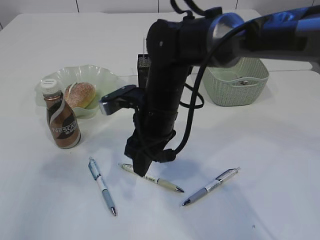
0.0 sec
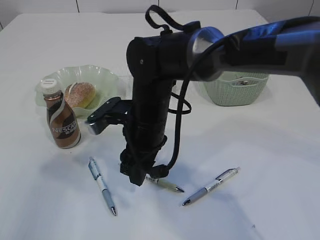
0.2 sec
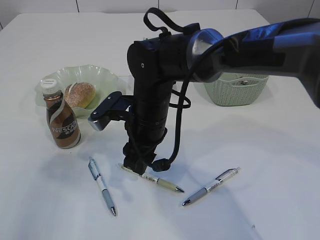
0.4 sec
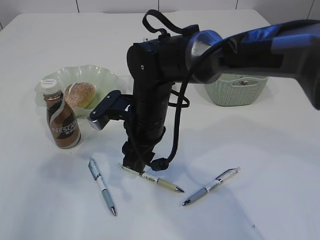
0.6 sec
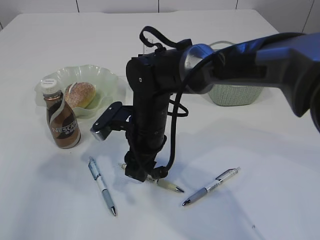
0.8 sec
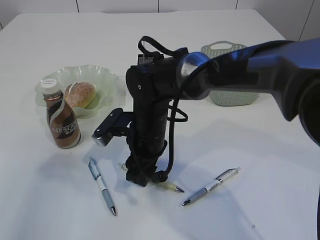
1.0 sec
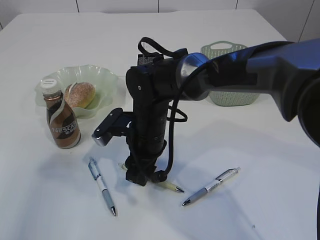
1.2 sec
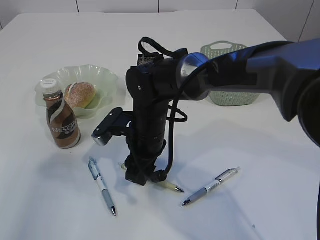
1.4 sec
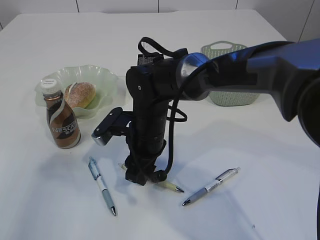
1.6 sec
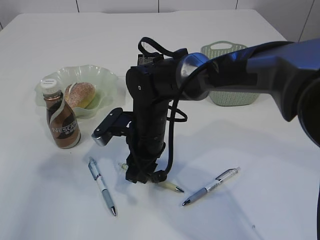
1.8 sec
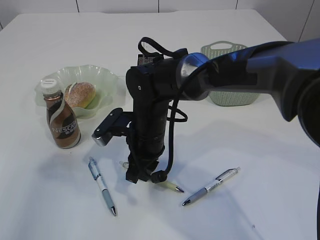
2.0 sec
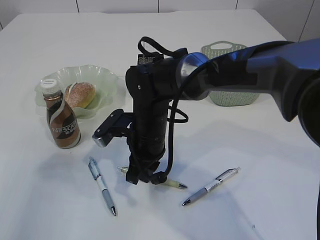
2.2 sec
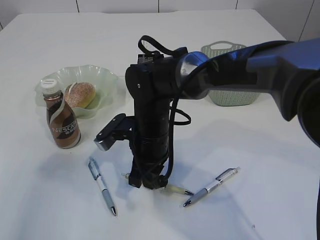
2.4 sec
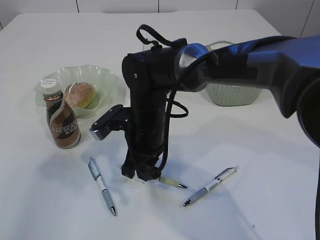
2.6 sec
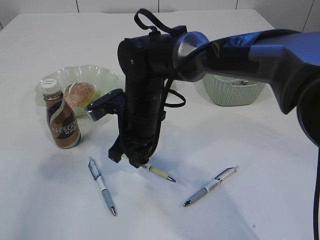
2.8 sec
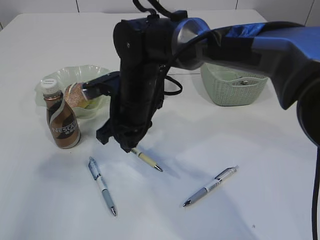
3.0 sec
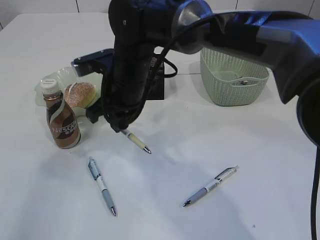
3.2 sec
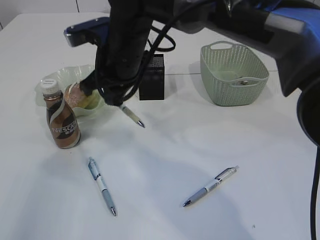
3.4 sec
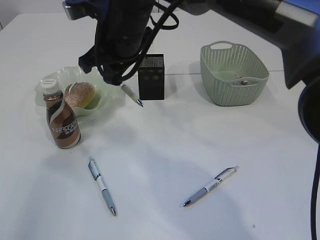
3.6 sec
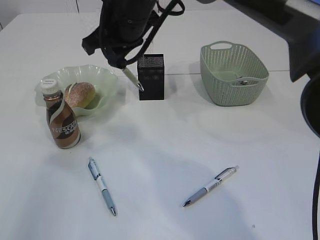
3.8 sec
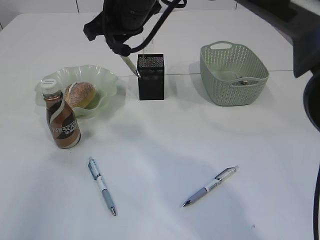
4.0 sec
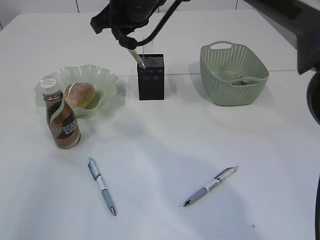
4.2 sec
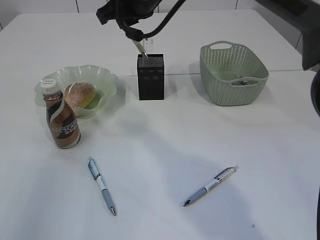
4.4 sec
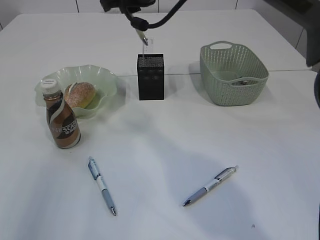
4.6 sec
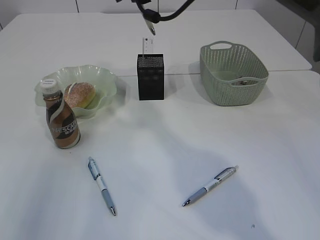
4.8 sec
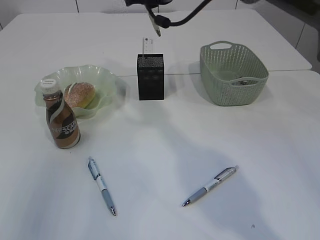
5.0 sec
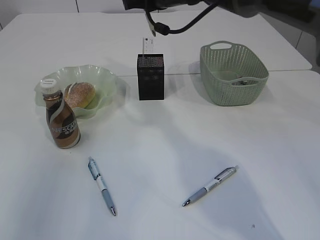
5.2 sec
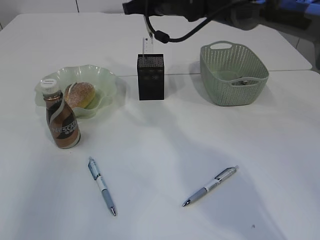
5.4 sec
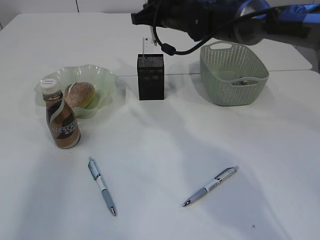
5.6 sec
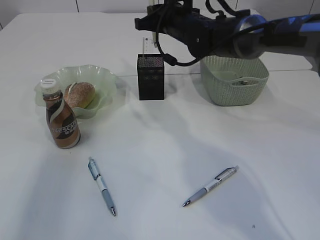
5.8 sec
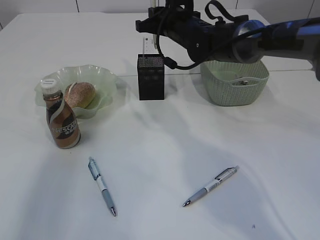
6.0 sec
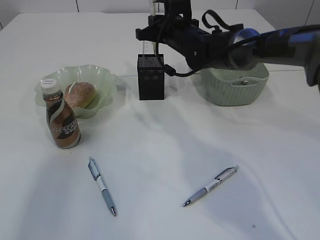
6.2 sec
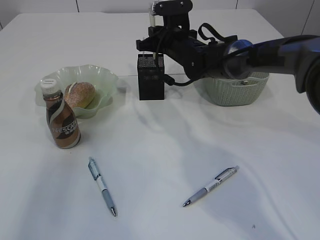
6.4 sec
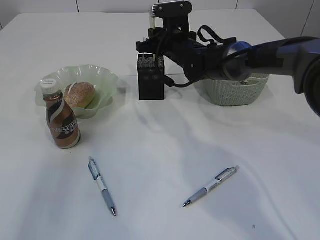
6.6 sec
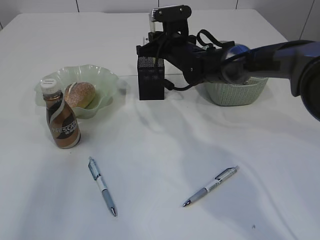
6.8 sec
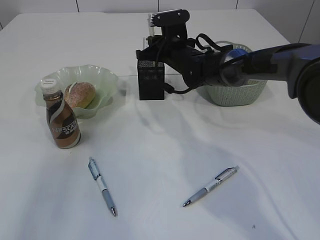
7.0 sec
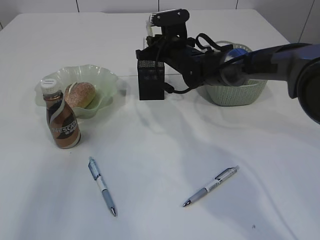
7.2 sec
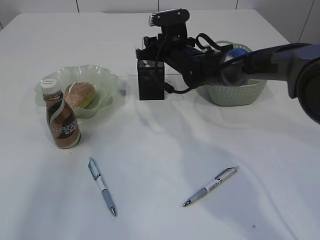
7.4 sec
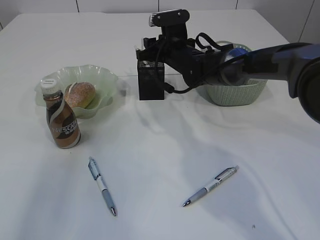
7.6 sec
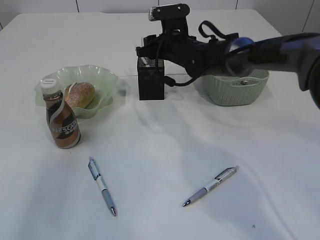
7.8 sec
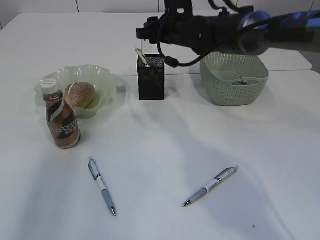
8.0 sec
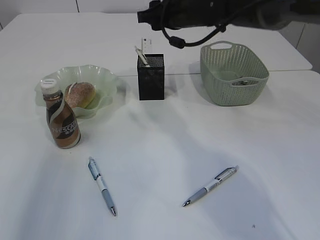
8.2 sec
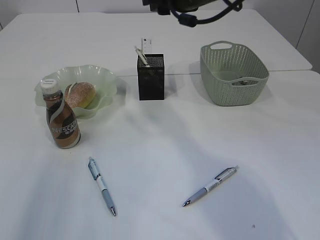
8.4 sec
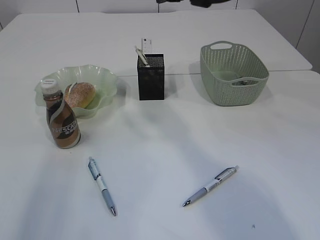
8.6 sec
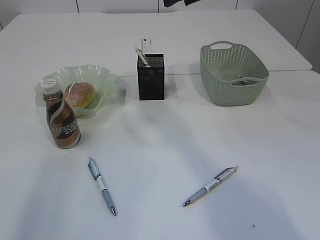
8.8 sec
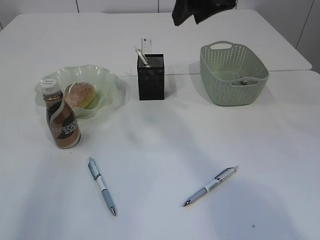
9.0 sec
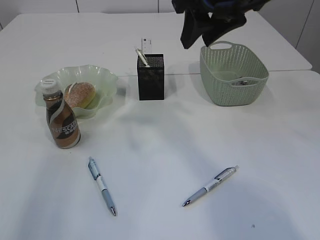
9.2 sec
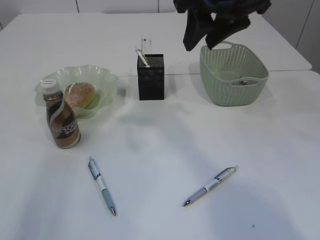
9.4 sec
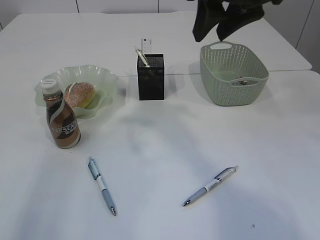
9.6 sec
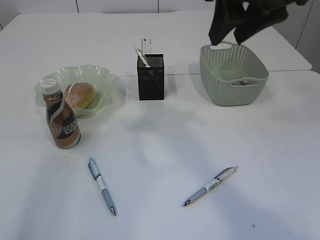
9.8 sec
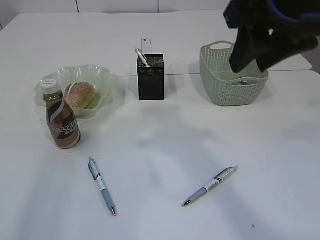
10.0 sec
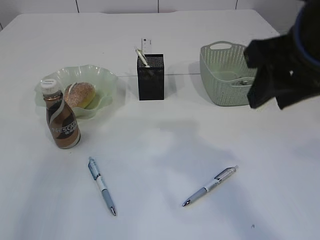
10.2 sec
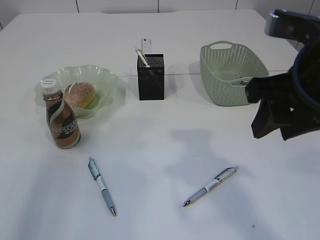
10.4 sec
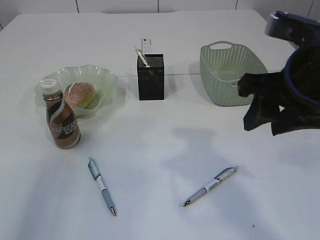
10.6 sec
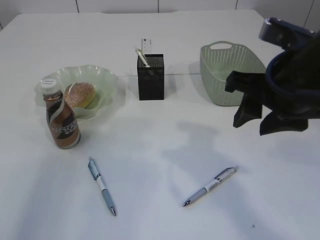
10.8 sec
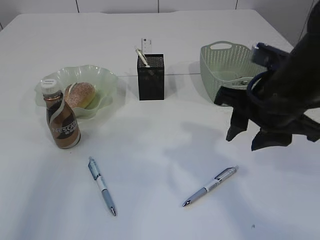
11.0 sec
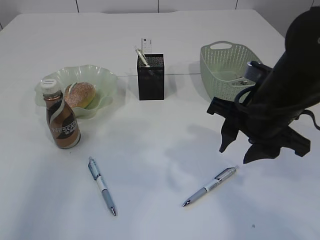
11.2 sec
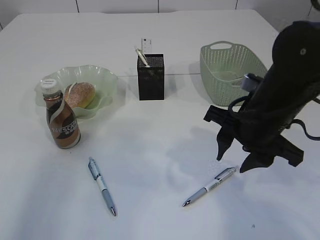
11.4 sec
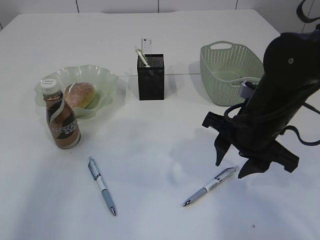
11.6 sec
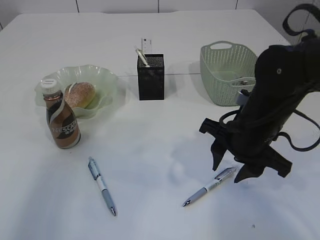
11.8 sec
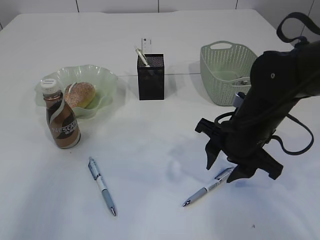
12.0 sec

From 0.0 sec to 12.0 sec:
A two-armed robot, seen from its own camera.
Step, from 0.0 sec to 3.0 sec: Pick up the pen with right arm.
Step, from 3.2 sec to 8.0 sec: Place the pen into the pen holder.
From 0.0 sec to 1.6 sec: The right gripper goes some 5 cm downward.
From 1.6 sec to 3.0 sec: The right gripper travels upward by some 5 cm, and closes.
From 3.0 sec to 4.4 sec: The right gripper travels upward and forward by roughly 15 cm.
From 4.4 sec to 6.0 sec: The right gripper goes roughly 15 cm downward, to the right and forward.
From 6.0 sec to 7.6 sec: The right gripper is displaced downward by roughly 5 cm, and opens its fingers.
From 7.6 sec to 9.0 sec: The right gripper is displaced upward and backward by some 25 cm.
From 9.0 sec to 10.4 sec: The right gripper goes some 15 cm backward, to the right and downward.
From 10.4 sec to 12.0 sec: The right gripper heads downward and forward, covering roughly 15 cm.

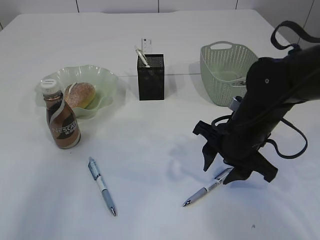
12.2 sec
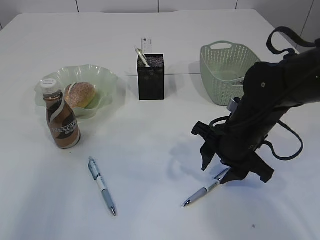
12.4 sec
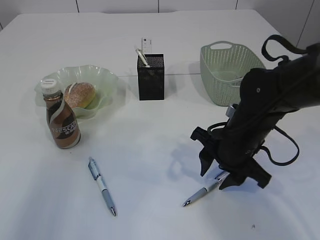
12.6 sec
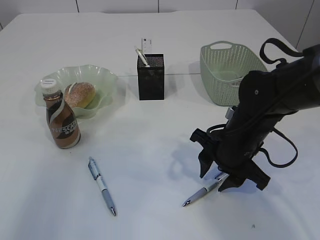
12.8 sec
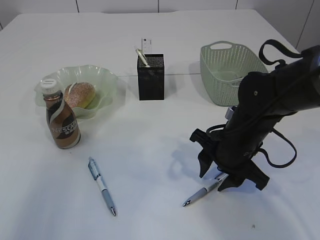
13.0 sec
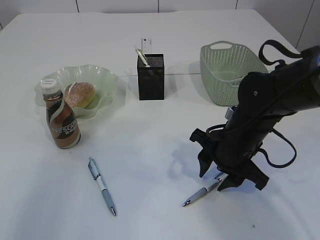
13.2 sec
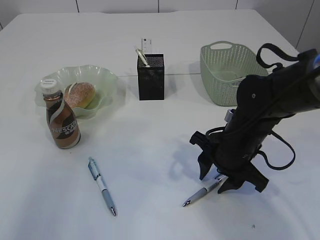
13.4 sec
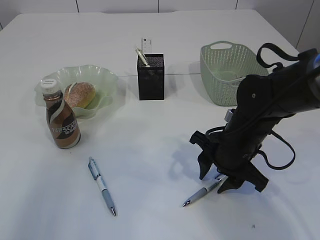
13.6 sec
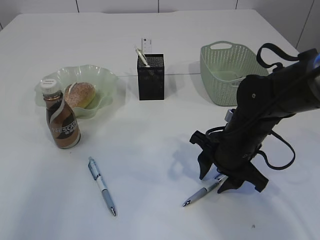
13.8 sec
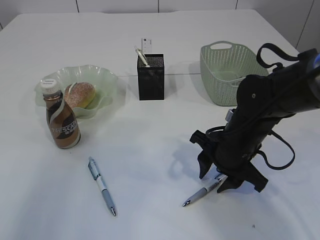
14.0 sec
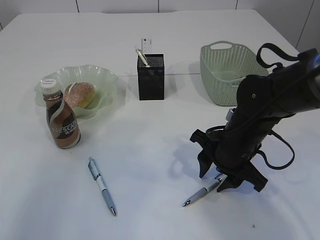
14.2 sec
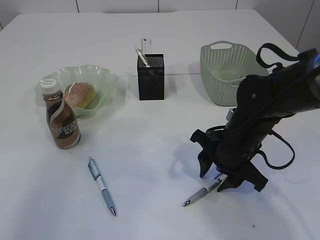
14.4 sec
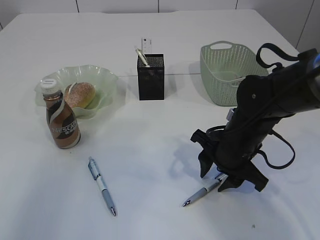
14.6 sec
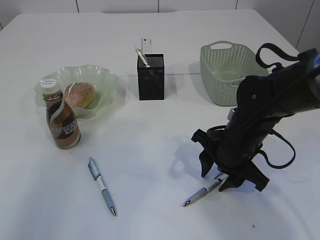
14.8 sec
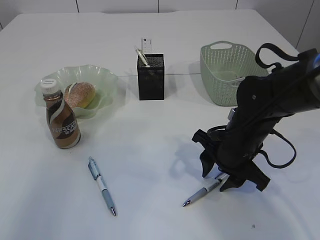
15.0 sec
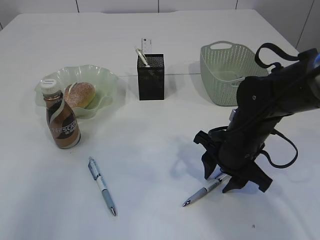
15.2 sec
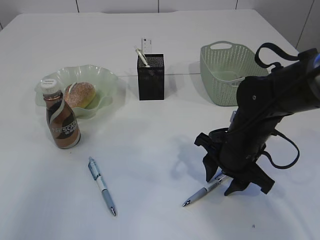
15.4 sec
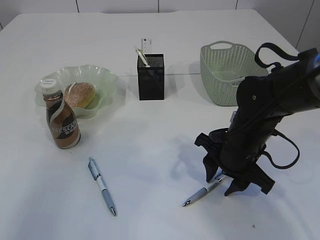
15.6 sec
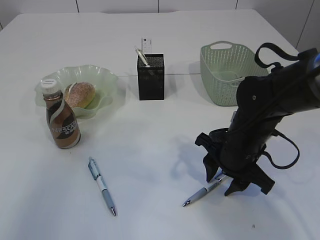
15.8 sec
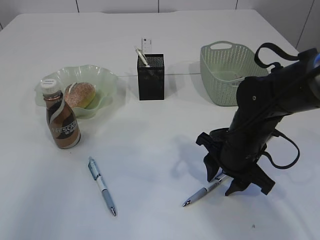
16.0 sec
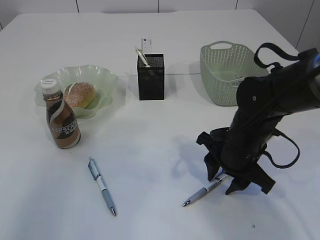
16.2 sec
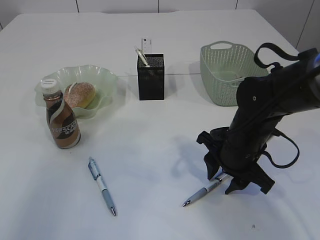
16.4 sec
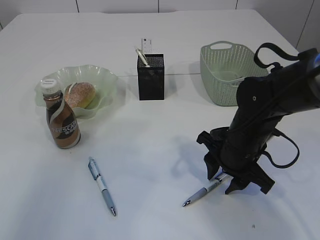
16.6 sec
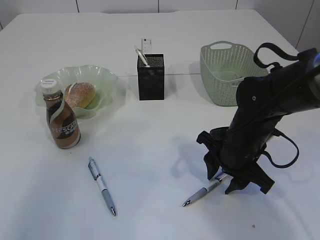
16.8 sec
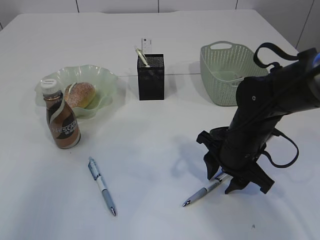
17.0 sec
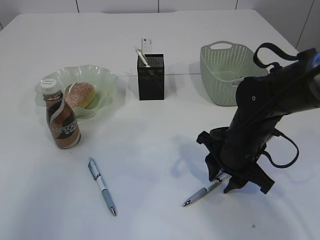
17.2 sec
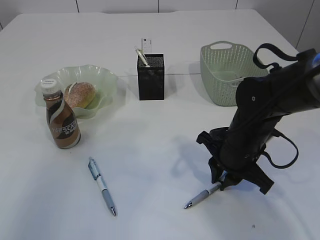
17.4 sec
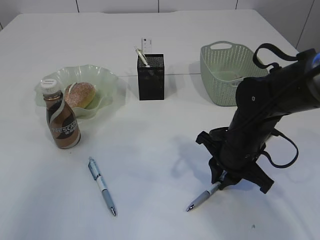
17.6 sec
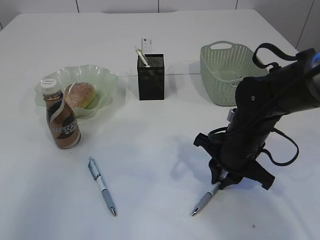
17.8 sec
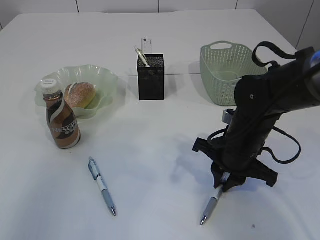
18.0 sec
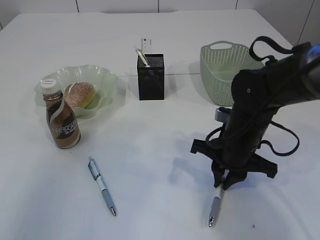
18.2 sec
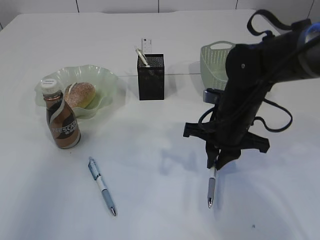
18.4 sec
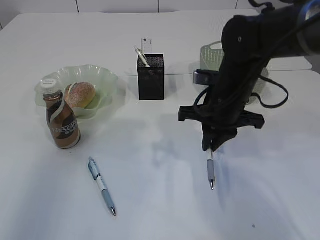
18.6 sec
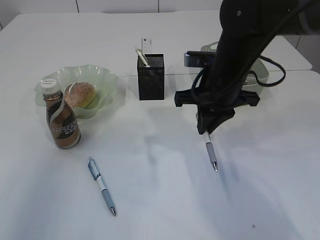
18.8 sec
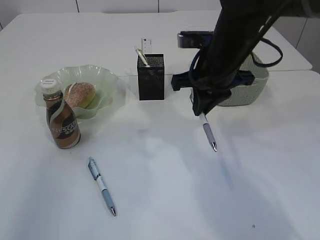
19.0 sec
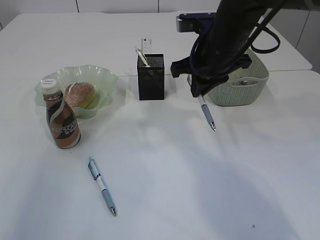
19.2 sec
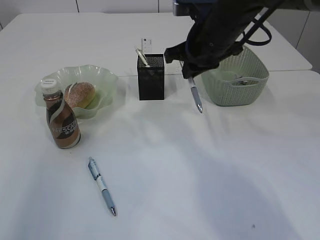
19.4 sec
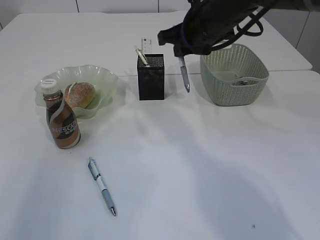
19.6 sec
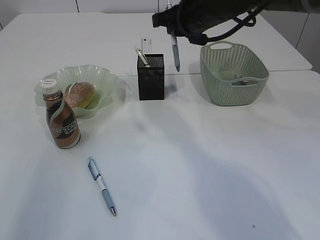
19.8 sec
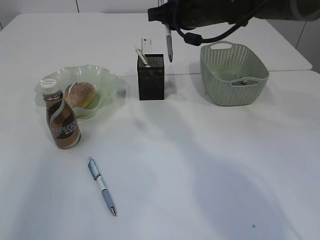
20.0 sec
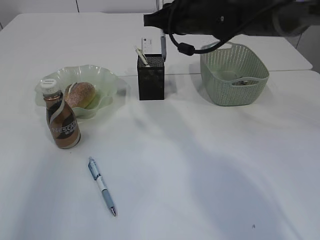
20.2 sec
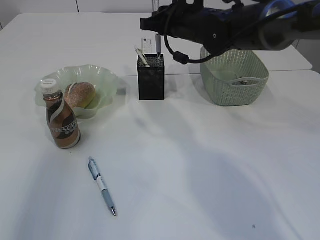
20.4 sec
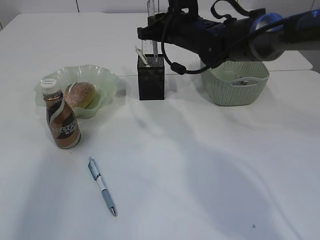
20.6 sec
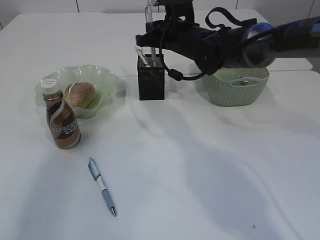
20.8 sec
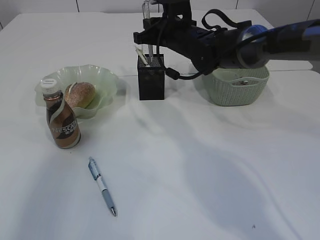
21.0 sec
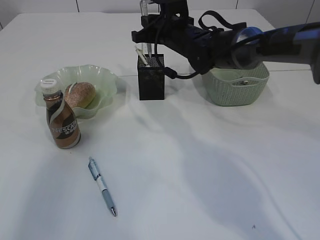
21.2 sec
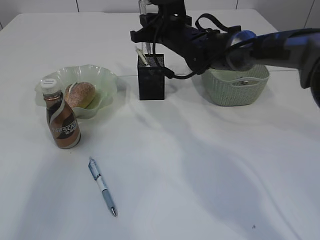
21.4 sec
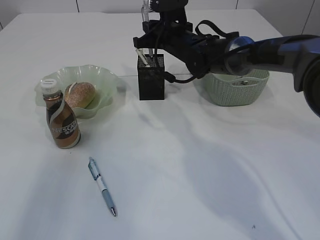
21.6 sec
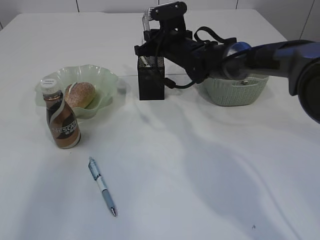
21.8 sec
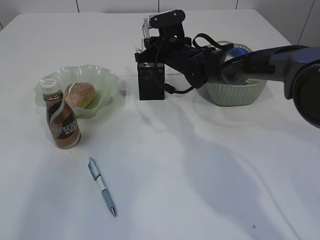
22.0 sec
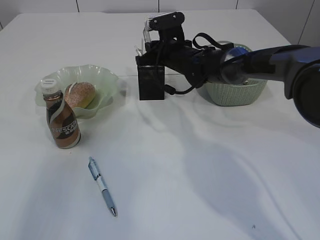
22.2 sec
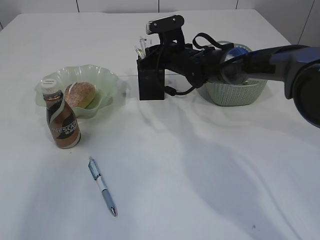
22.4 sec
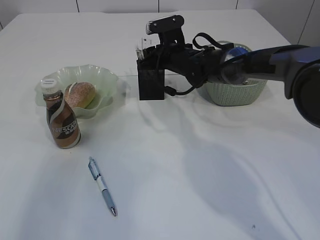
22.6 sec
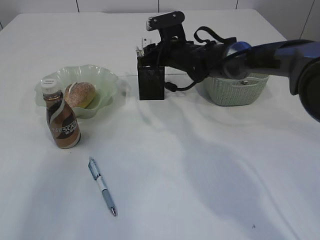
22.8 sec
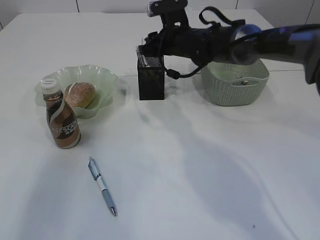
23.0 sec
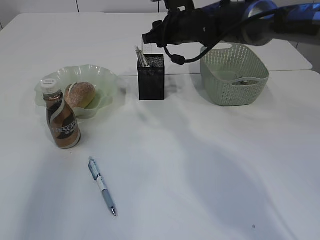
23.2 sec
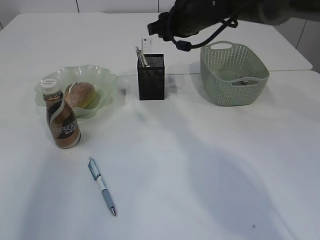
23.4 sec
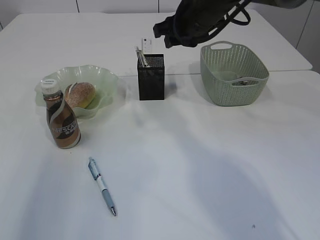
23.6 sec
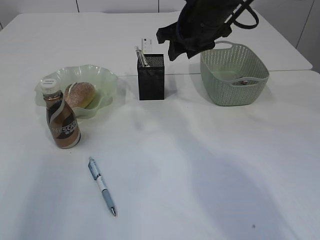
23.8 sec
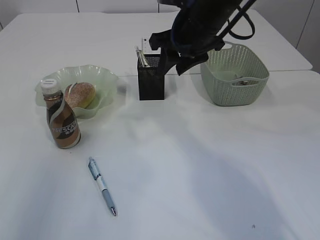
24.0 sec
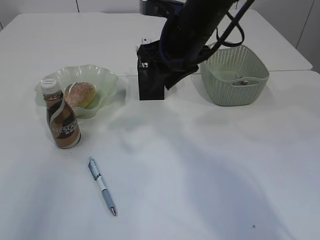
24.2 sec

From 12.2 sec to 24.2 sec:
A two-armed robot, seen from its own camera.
Step, from 12.2 sec to 18.8 sec: Pick up the pen with right arm.
Step, from 19.0 sec to 23.2 sec: Place the pen into the pen holder.
From 12.2 sec to 13.8 sec: The grippers stay close to where they were, moving slightly.
From 13.8 sec to 15.2 sec: Both grippers stay put.
From 15.2 sec to 16.6 sec: The two grippers keep their place.
From 16.6 sec to 18.2 sec: The right gripper closes up.
From 18.2 sec to 19.8 sec: The right gripper heads upward and forward, covering roughly 20 cm.
From 19.8 sec to 21.2 sec: The right gripper moves forward and downward, approximately 10 cm.
From 21.2 sec to 22.6 sec: The right gripper travels downward by roughly 5 cm, and opens up.
From 22.6 sec to 24.2 sec: The right gripper goes about 20 cm backward and upward.
